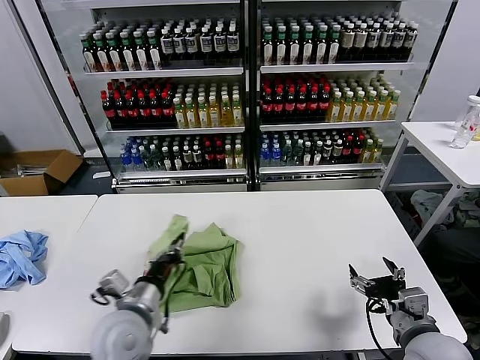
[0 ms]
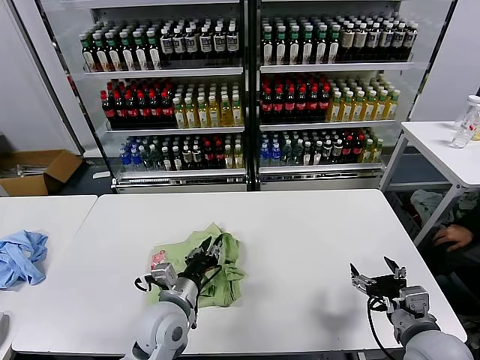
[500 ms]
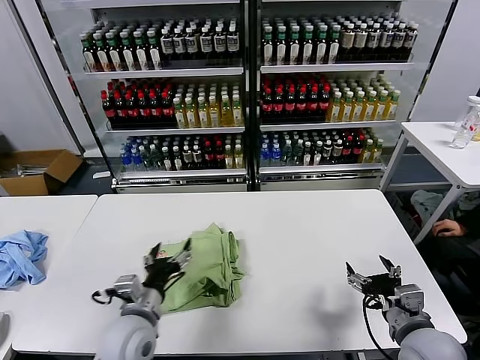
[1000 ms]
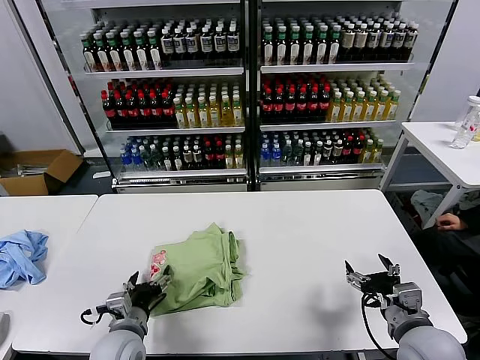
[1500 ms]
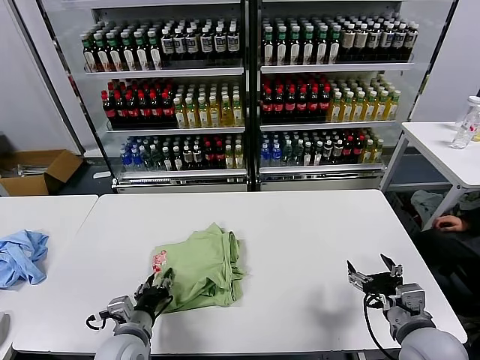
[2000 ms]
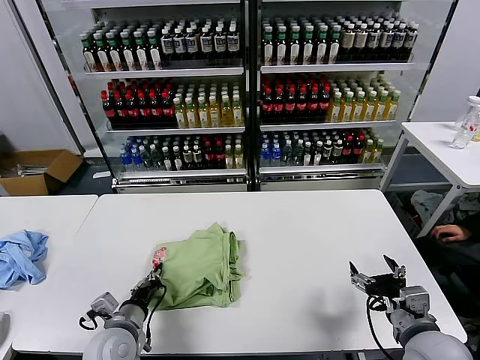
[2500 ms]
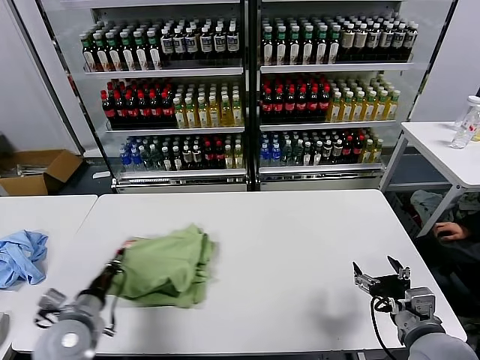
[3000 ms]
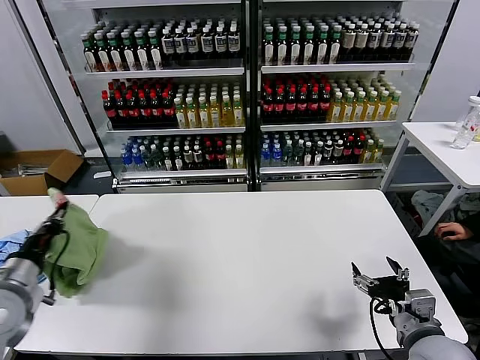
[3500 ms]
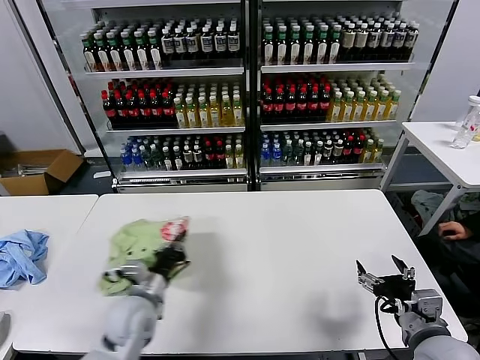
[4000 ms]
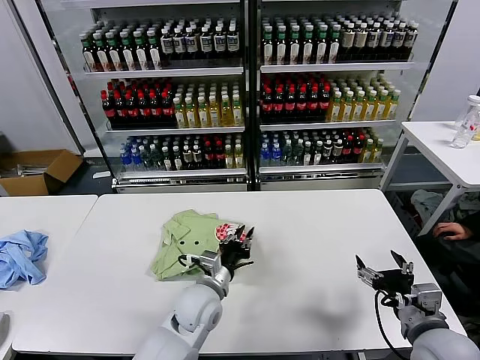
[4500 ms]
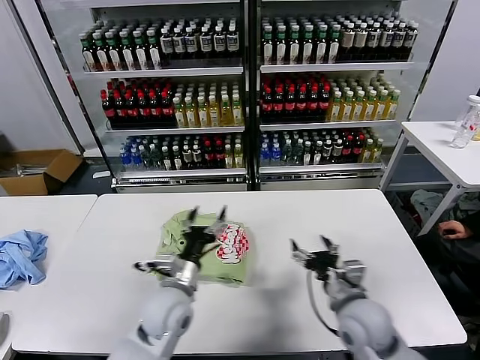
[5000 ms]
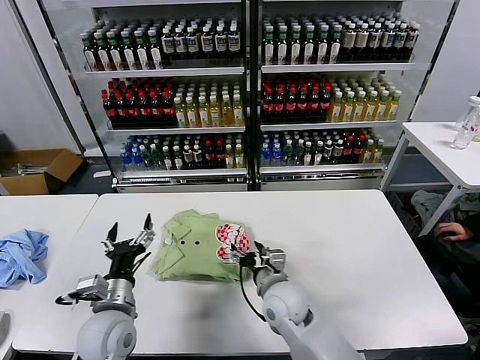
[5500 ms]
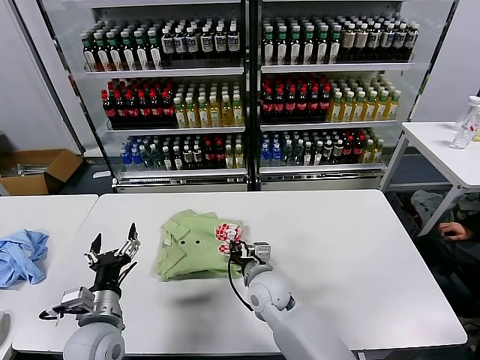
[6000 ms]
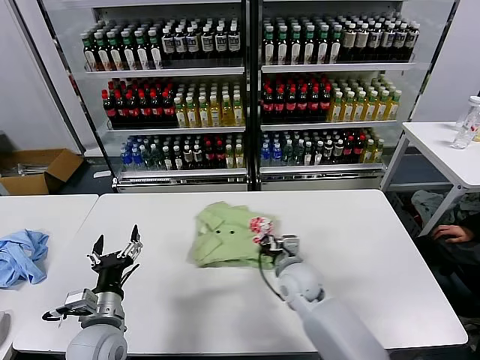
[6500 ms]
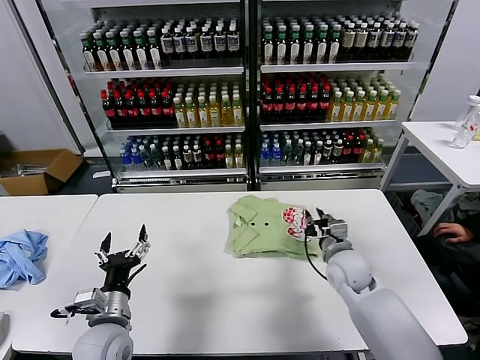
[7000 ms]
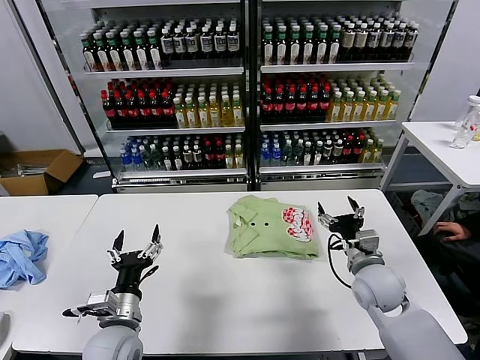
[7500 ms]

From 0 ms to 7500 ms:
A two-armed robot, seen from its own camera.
Task of the whole recording: fold and organize the clothes.
Step, from 1000 ms to 4500 ms: Flip the folded clothes over with left gripper.
Step, from 5000 ms to 7000 ms: Drag the clothes to the center of the table.
From 0 ms to 2000 ms: The left gripper travels downward by some 10 cm, travels to the right and back again, about 5 cm each way, and opens.
From 2000 ms to 4000 ms: The left gripper shifts roughly 10 cm forward and upward, goes to the left and returns, some 20 cm each way, and closes.
From 4000 ms to 5500 ms: The left gripper reaches some 15 cm to the right, then returns, and opens up. The right gripper travels to the left and forward by some 25 cm.
From 5500 ms to 7500 ms: The right gripper travels to the right by roughly 20 cm, and closes and opens again.
